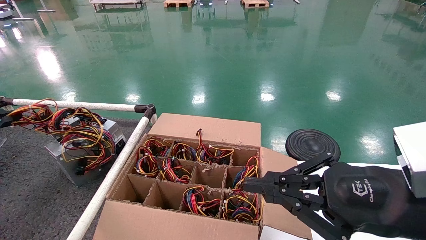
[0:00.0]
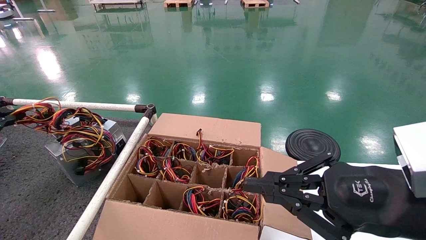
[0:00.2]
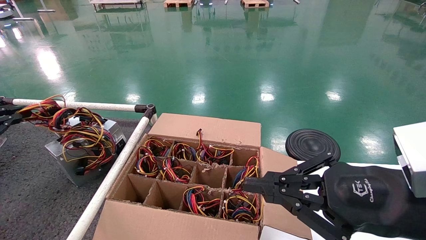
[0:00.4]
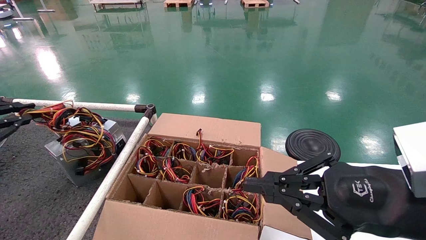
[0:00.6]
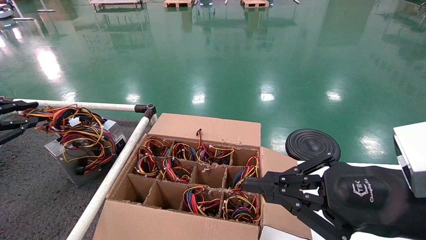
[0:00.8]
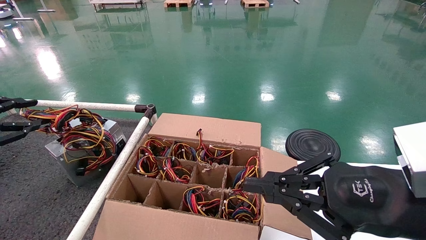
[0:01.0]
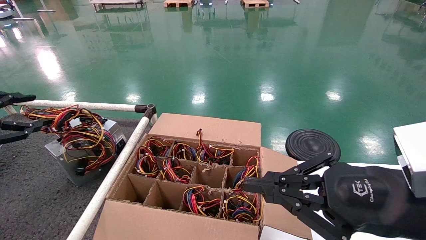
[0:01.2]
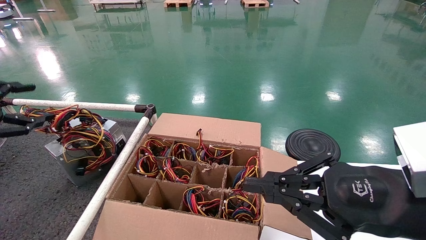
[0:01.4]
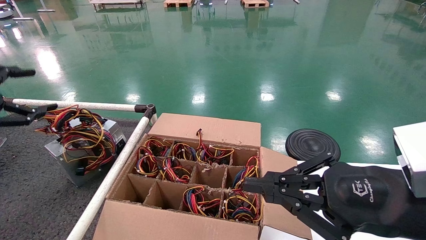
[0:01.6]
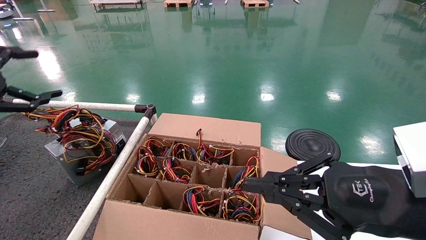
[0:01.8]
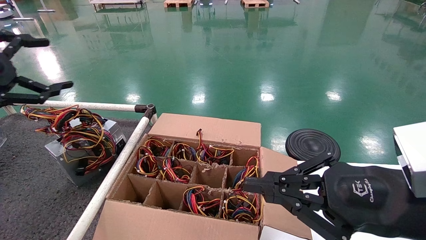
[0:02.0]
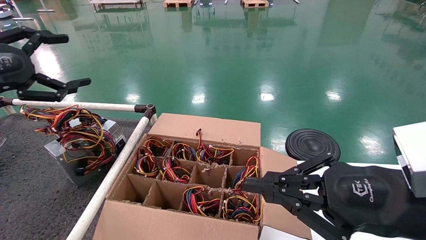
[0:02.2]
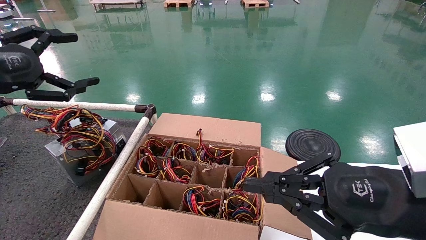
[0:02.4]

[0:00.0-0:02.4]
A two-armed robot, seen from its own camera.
0:00.0 to 0:01.2: The left gripper opens up.
0:01.2 to 0:02.4: The left gripper goes about 15 cm to the right and upward, and opens its fingers.
